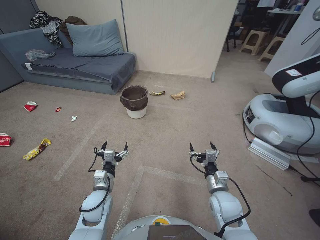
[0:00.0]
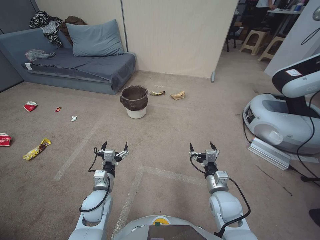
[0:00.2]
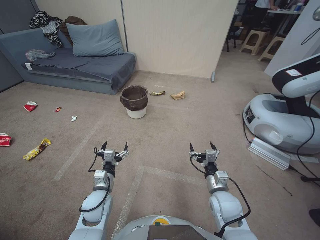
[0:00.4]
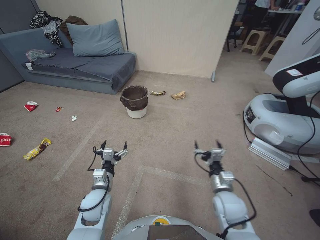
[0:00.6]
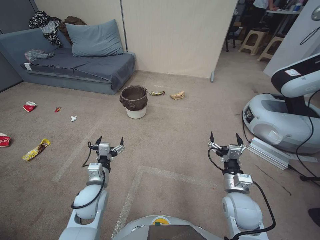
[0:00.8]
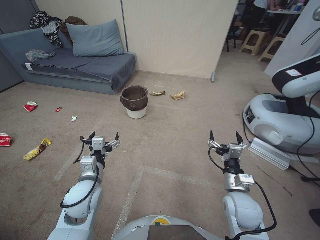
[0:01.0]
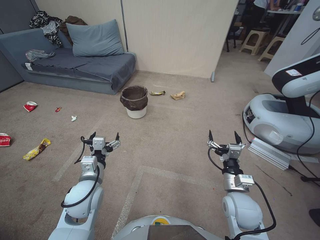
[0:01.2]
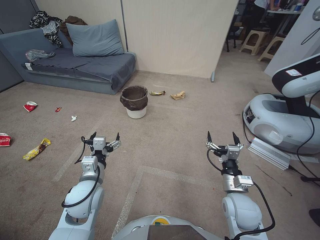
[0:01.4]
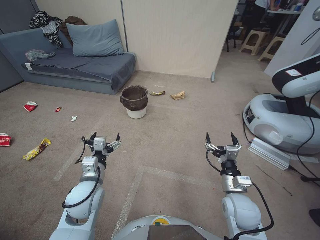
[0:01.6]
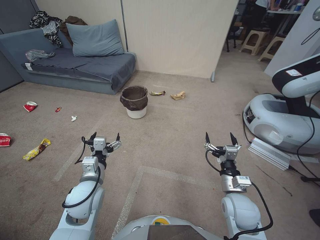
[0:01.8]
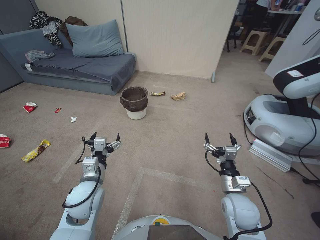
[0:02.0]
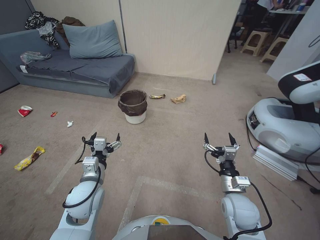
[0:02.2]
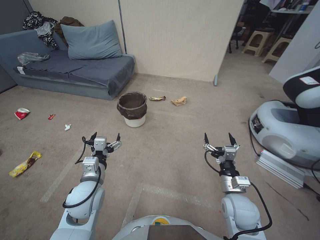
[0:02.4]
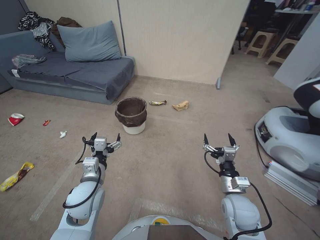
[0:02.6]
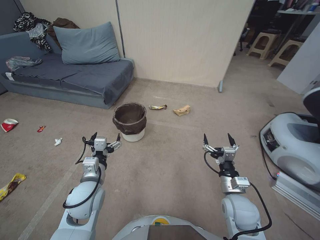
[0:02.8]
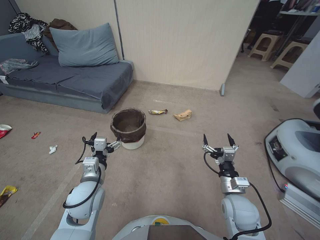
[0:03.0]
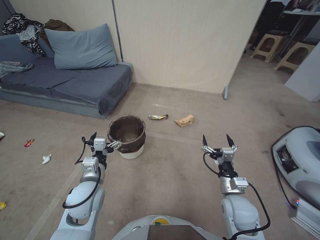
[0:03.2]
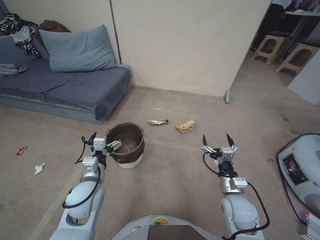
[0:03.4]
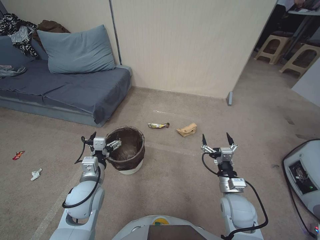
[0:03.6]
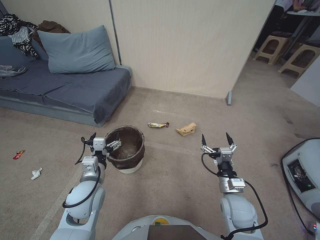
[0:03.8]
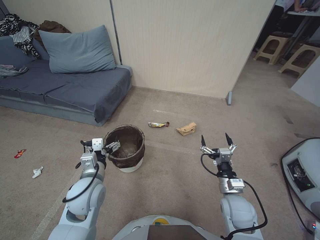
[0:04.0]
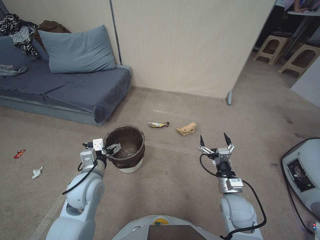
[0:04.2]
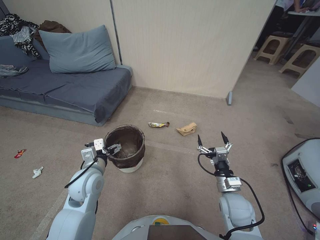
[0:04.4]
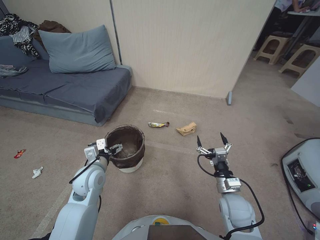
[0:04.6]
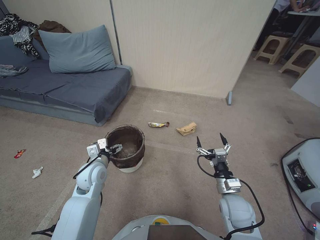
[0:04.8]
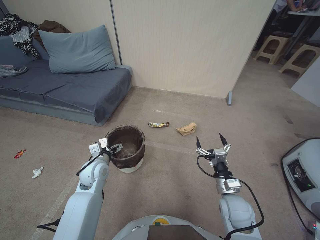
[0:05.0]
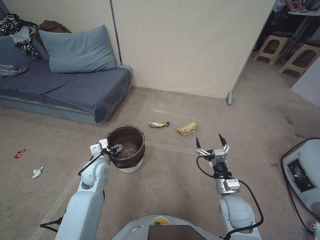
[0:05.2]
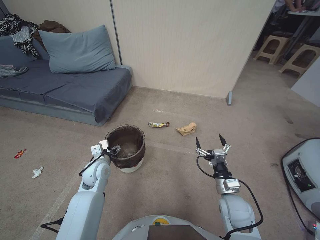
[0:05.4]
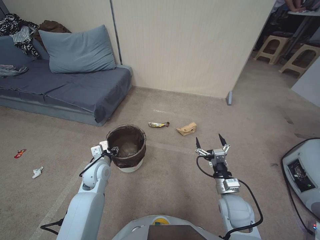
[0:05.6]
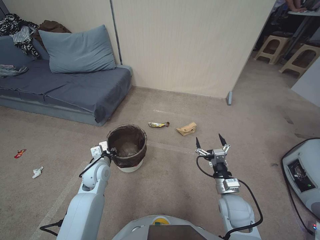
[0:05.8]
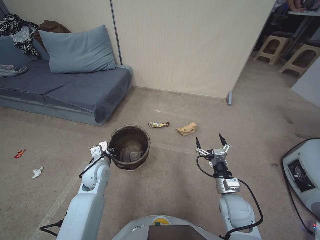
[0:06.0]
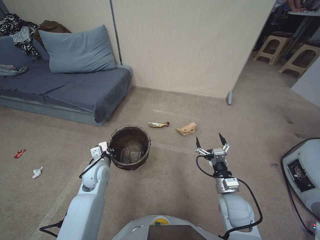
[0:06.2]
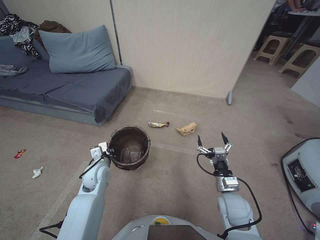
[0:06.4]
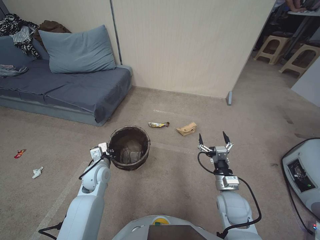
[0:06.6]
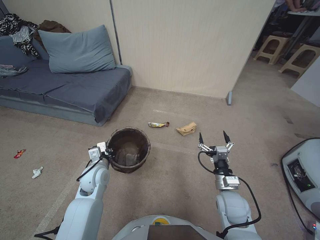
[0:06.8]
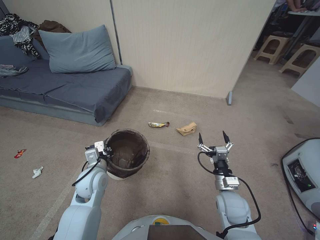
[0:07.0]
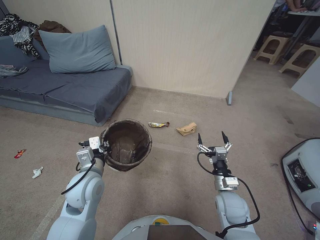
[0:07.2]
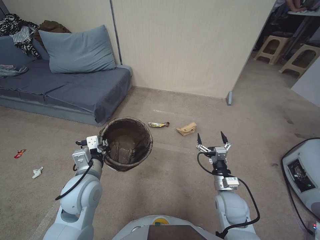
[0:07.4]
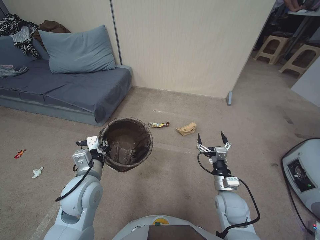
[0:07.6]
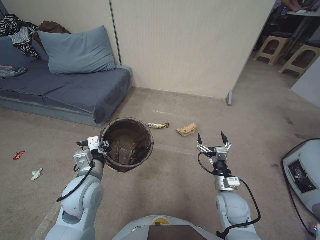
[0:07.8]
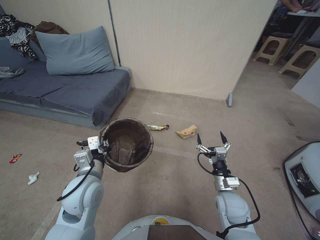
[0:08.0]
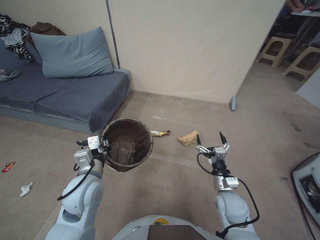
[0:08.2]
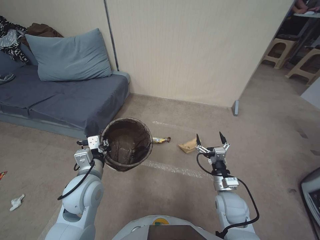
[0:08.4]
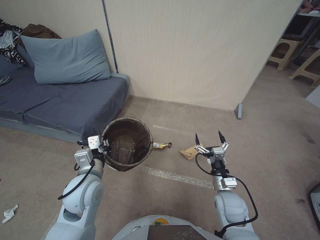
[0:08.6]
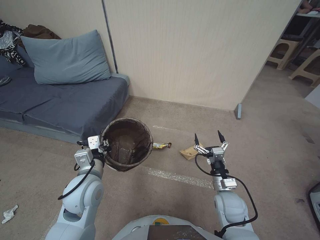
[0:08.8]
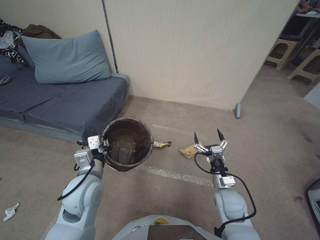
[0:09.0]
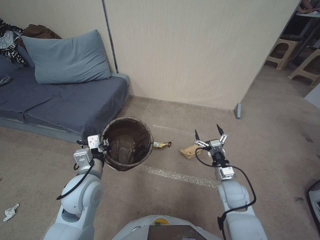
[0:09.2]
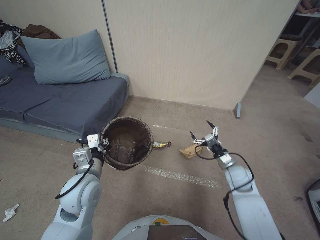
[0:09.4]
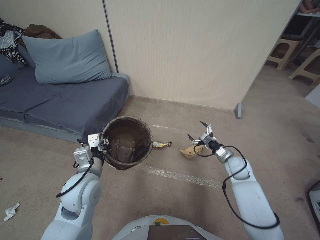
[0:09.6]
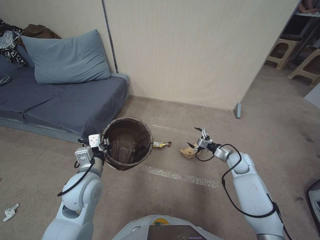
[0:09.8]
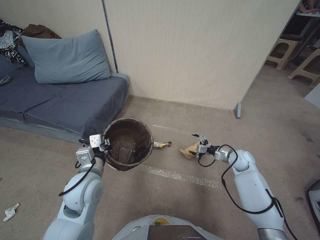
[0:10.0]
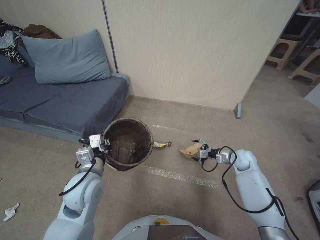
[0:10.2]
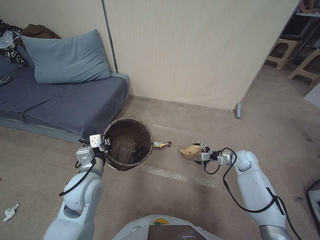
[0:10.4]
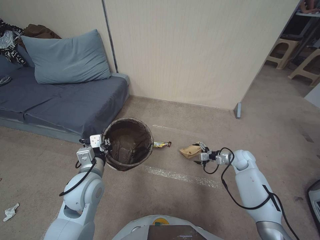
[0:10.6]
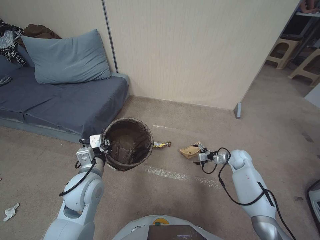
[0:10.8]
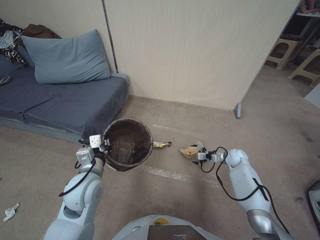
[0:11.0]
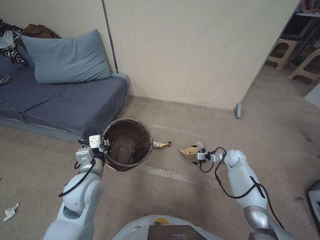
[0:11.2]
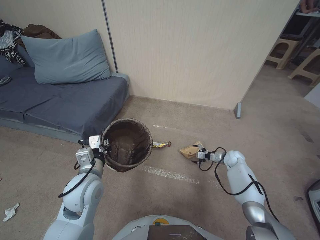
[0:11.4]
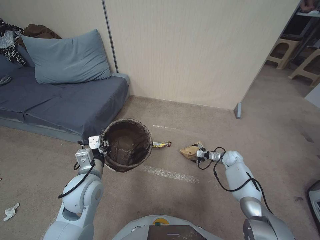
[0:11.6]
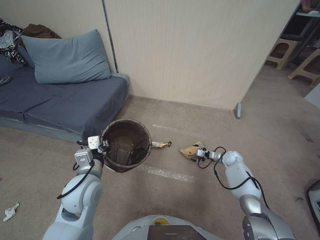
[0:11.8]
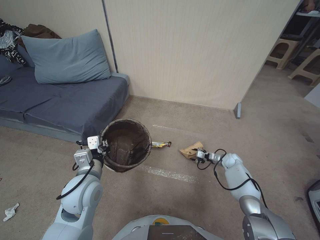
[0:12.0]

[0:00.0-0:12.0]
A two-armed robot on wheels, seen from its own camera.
Task of the whole recording: Pick up the trash bin, then pick up the garbage from the floor and place it into the trash bin.
0:04.4 to 0:06.0: The left gripper is displaced downward and forward by about 10 cm, and closes its fingers.
0:06.0 to 0:07.6: The left gripper is displaced upward and backward by roughly 15 cm.
0:09.0 to 0:10.4: The right gripper goes about 25 cm forward and to the right.
0:10.4 to 0:12.0: The right gripper moves downward and forward, roughly 10 cm.

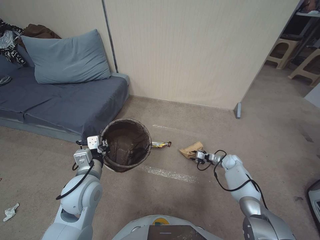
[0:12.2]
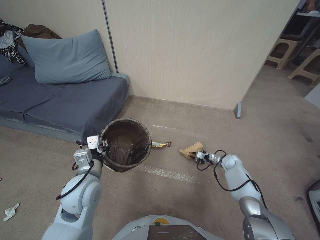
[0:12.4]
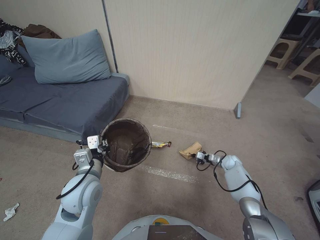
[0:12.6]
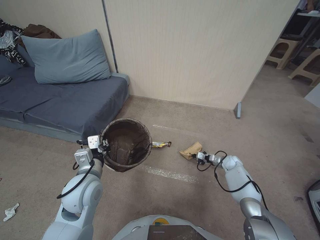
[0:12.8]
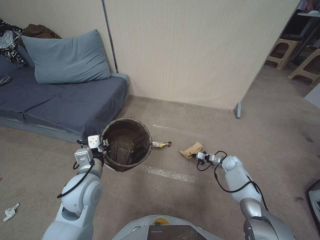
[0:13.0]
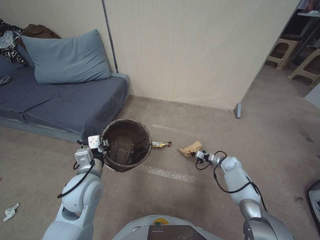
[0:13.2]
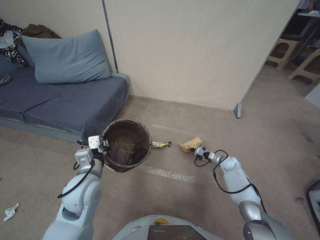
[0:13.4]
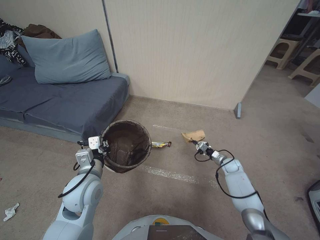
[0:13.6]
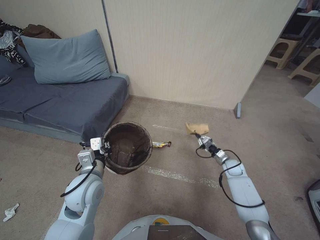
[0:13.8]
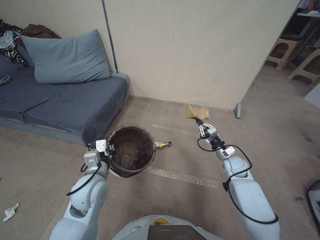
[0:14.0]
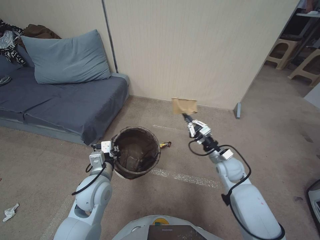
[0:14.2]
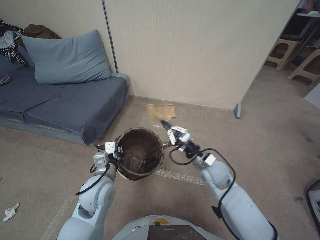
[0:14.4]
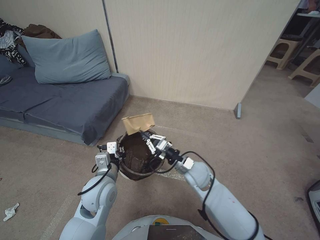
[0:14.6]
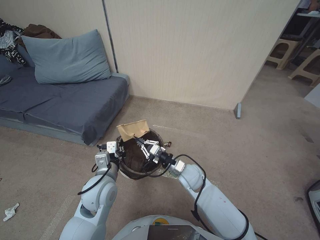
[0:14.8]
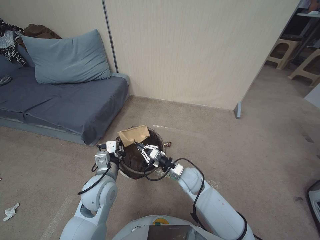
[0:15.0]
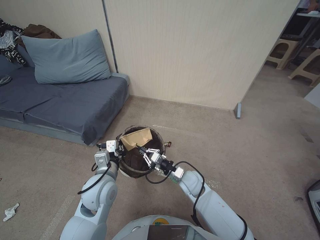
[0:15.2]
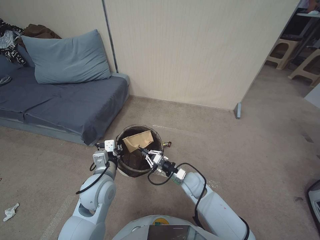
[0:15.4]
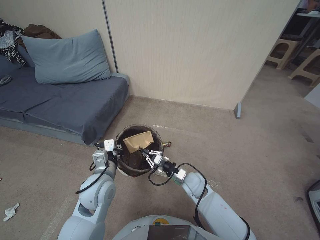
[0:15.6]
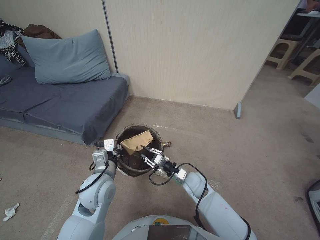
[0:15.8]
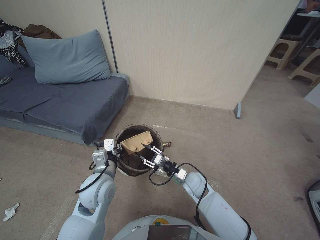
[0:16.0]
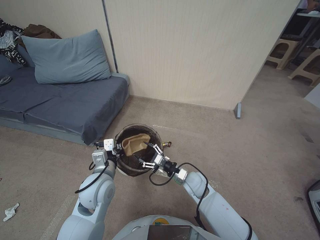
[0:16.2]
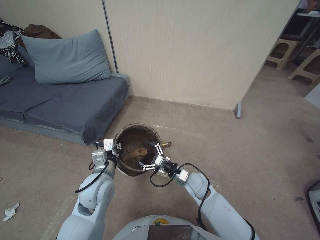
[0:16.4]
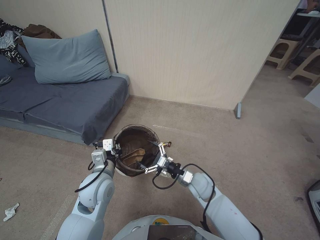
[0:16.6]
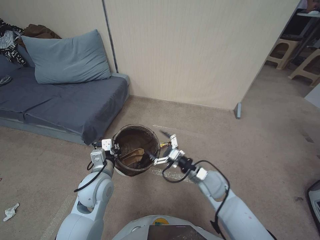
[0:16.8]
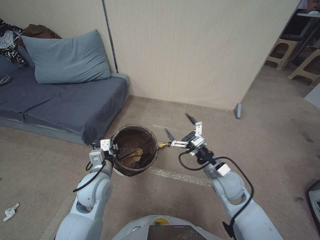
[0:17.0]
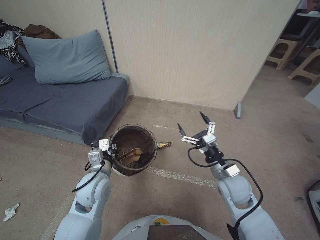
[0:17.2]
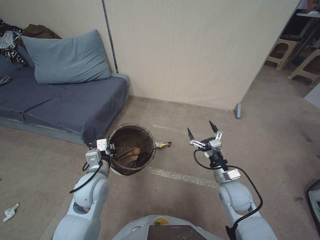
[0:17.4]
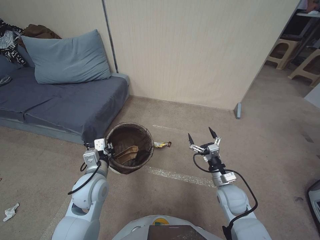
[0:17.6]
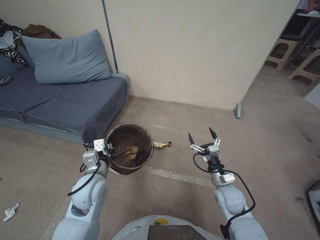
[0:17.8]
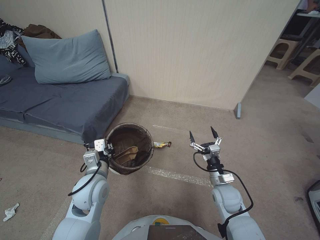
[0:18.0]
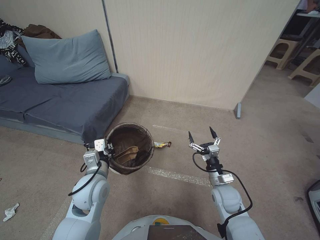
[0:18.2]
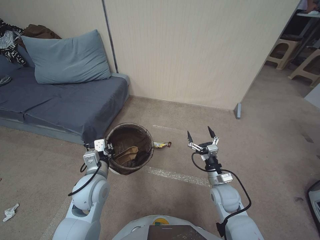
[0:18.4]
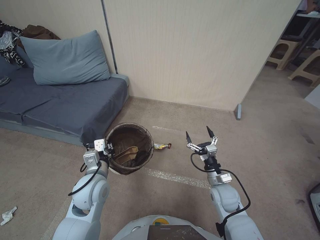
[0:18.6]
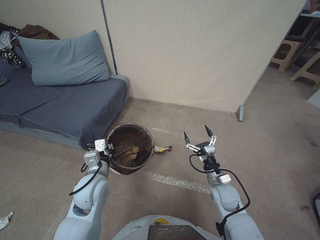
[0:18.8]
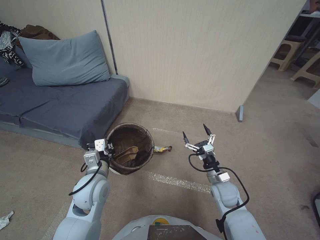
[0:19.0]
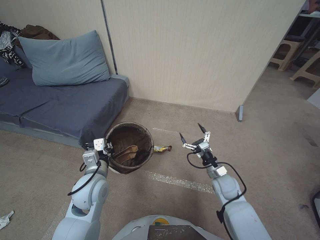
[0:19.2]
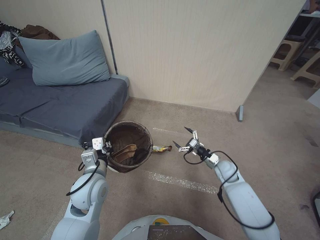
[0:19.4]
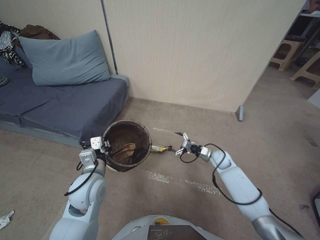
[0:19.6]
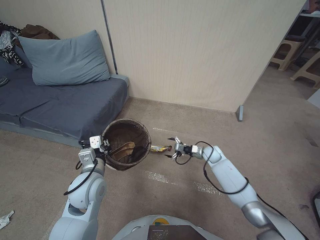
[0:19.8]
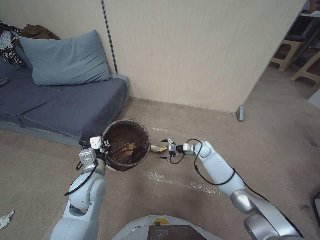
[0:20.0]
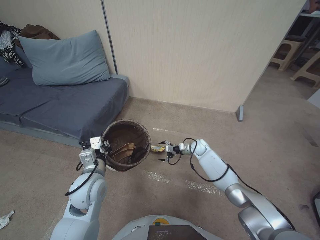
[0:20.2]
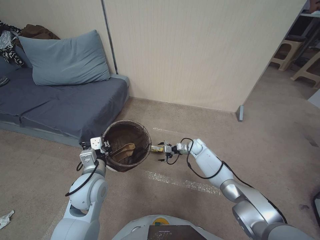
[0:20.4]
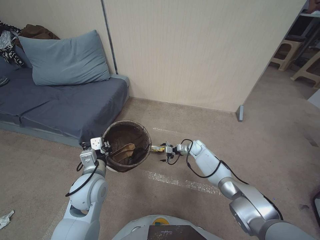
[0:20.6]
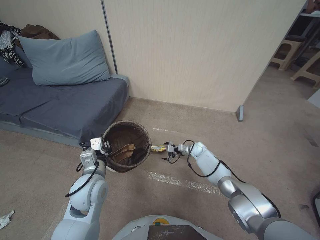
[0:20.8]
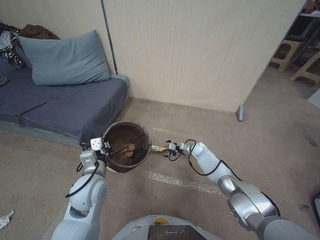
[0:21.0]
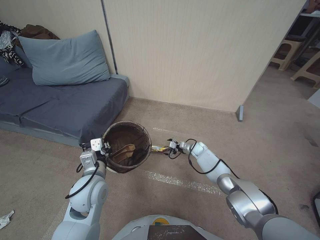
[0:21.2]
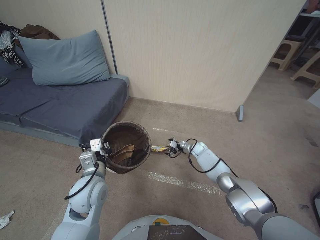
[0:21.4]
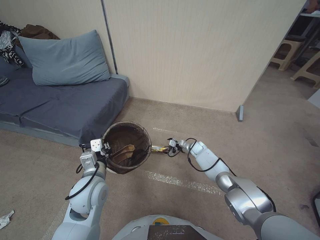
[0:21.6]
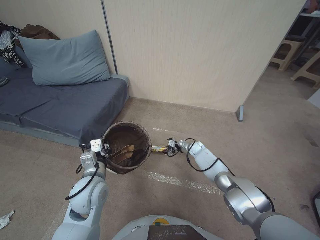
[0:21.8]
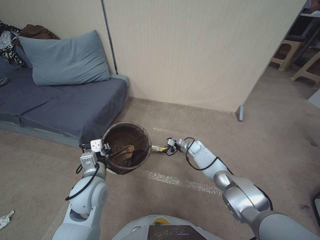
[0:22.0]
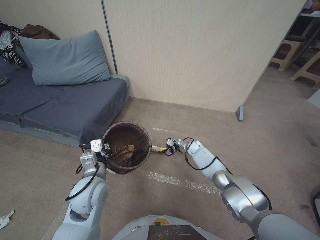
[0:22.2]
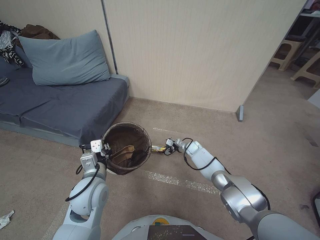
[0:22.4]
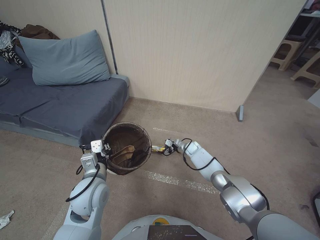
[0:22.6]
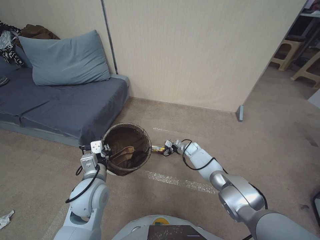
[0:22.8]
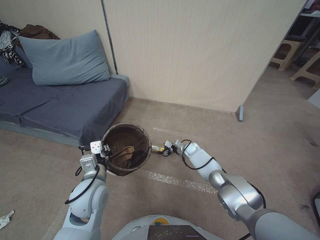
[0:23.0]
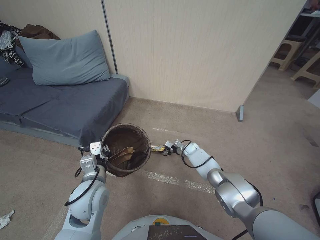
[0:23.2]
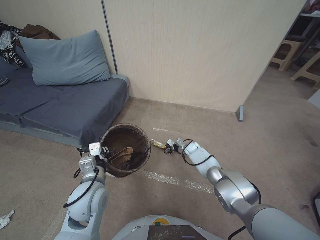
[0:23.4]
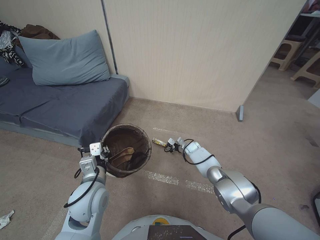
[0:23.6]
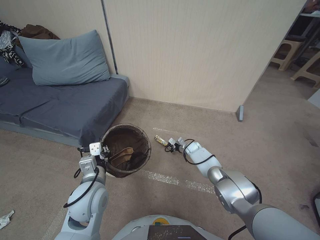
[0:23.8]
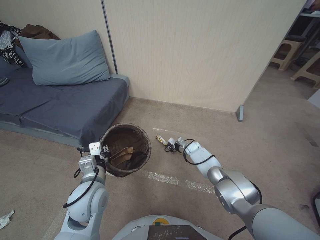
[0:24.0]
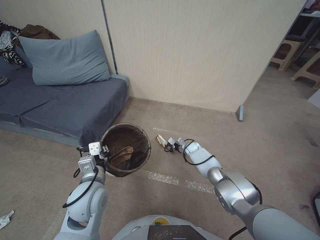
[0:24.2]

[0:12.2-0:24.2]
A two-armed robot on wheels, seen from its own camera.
Task of the whole recording: Pick up the trash bin, then pick up the garbage from the floor and place it into the trash bin.
0:12.2 to 0:13.8: The right gripper heads backward, covering approximately 5 cm, and closes up.
0:13.8 to 0:15.2: The right gripper shifts approximately 30 cm to the left and upward.
0:15.2 to 0:16.6: The right gripper opens.
0:16.6 to 0:18.2: The right gripper is displaced to the right by some 10 cm.
0:18.2 to 0:19.8: The right gripper heads forward, covering some 20 cm.
0:19.8 to 0:21.2: The right gripper moves forward and downward, about 10 cm.
0:21.2 to 0:22.6: The grippers stay close to where they were, moving slightly.
0:22.6 to 0:24.2: The right gripper closes.
